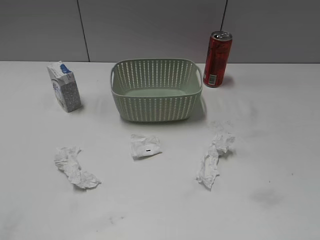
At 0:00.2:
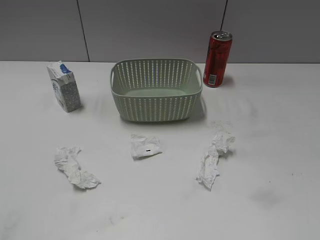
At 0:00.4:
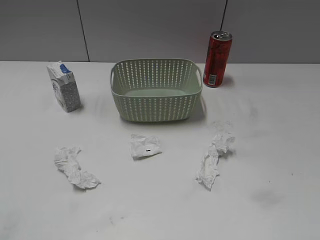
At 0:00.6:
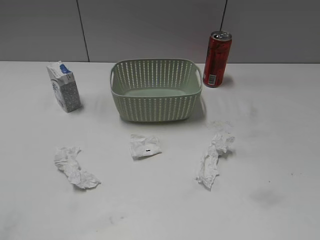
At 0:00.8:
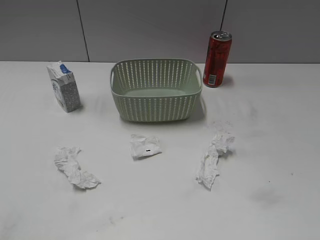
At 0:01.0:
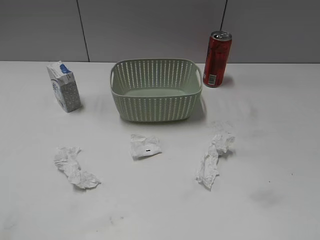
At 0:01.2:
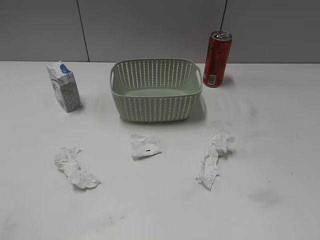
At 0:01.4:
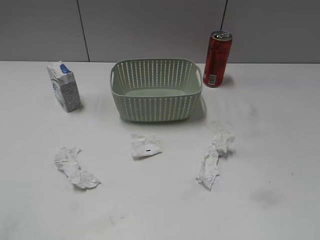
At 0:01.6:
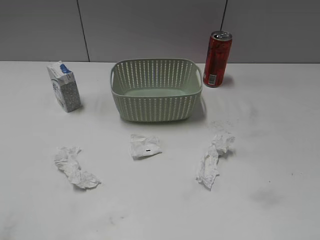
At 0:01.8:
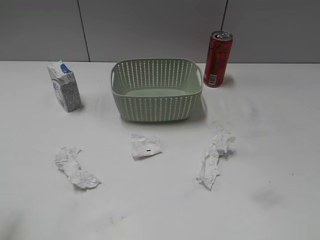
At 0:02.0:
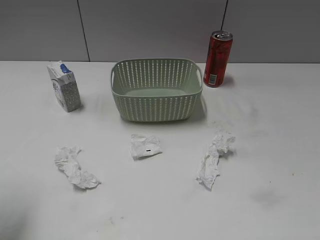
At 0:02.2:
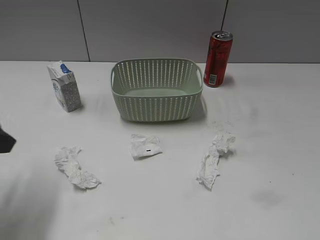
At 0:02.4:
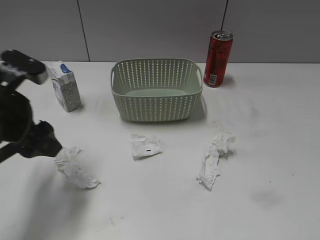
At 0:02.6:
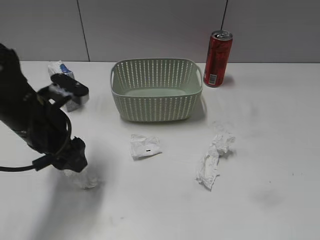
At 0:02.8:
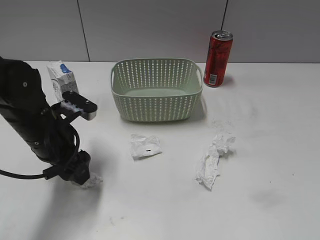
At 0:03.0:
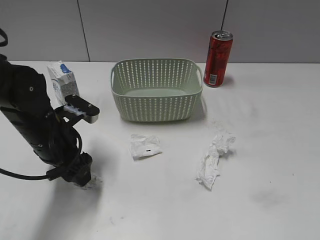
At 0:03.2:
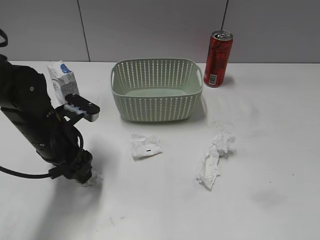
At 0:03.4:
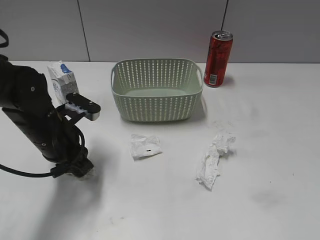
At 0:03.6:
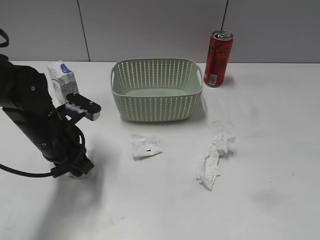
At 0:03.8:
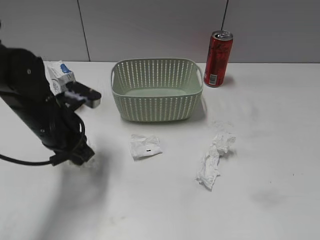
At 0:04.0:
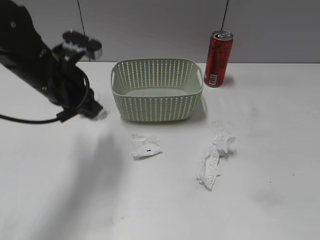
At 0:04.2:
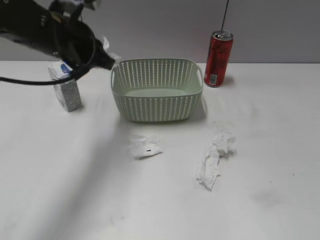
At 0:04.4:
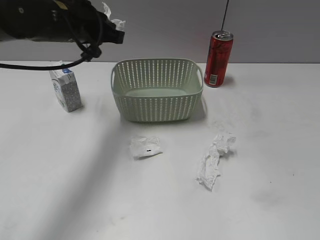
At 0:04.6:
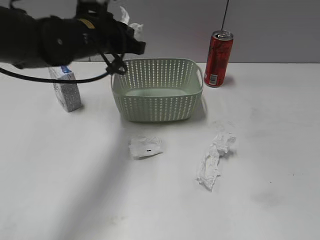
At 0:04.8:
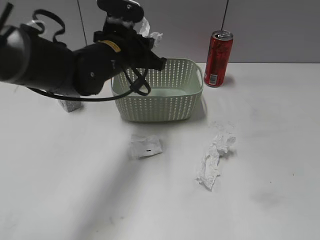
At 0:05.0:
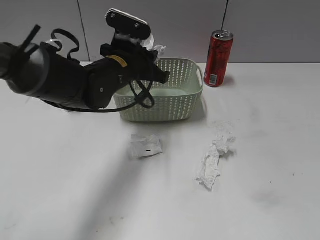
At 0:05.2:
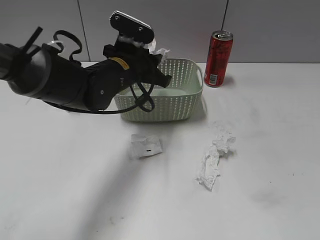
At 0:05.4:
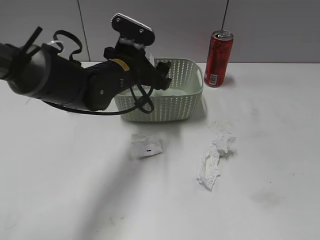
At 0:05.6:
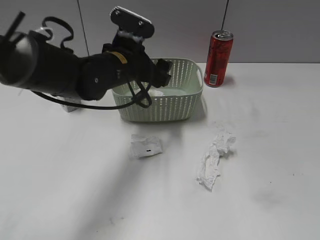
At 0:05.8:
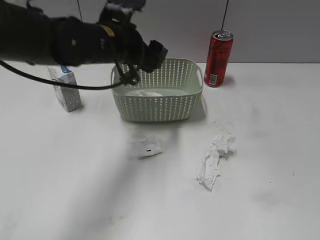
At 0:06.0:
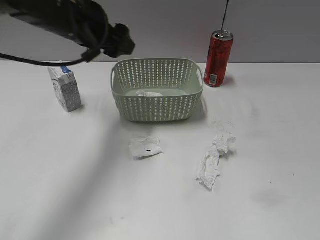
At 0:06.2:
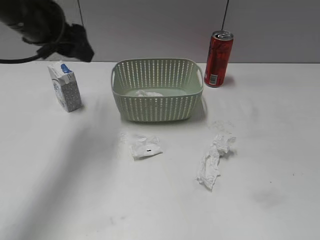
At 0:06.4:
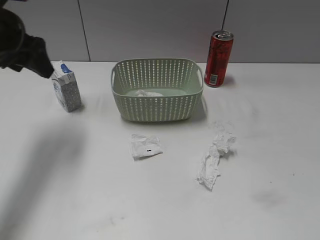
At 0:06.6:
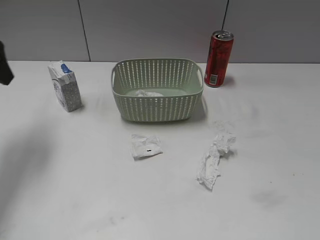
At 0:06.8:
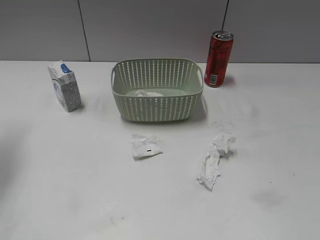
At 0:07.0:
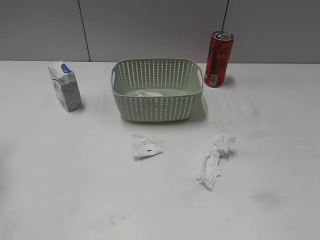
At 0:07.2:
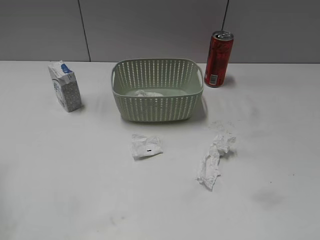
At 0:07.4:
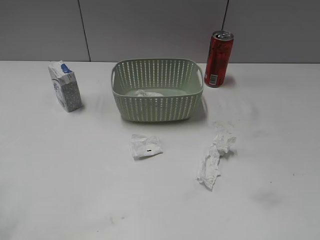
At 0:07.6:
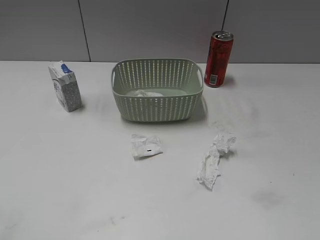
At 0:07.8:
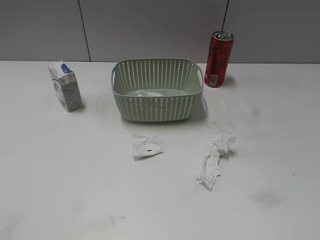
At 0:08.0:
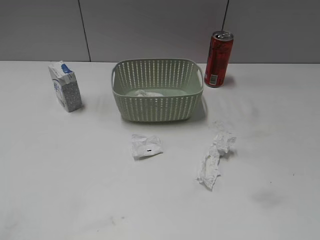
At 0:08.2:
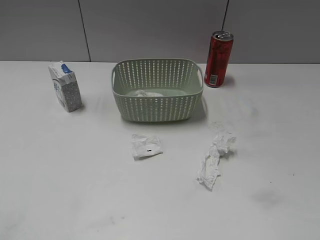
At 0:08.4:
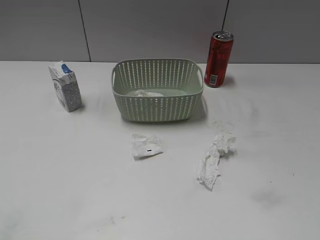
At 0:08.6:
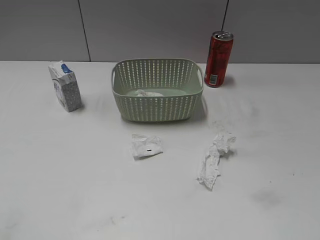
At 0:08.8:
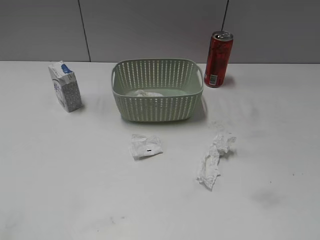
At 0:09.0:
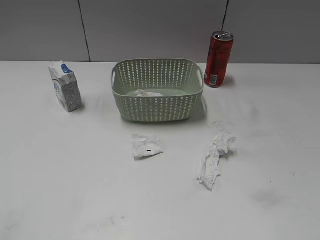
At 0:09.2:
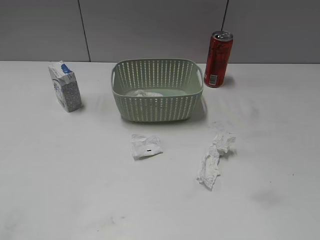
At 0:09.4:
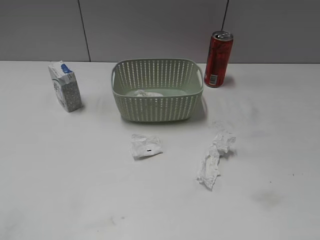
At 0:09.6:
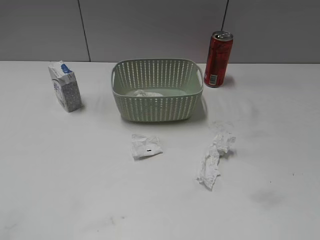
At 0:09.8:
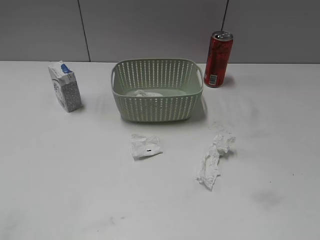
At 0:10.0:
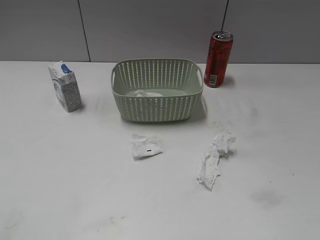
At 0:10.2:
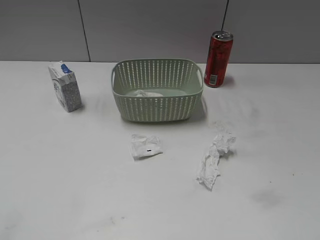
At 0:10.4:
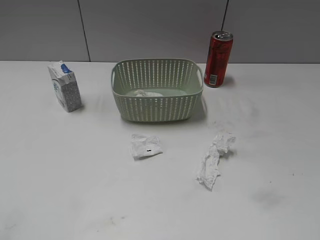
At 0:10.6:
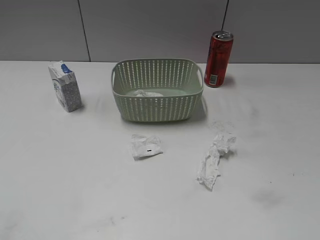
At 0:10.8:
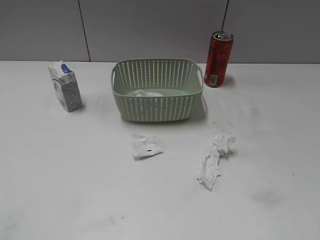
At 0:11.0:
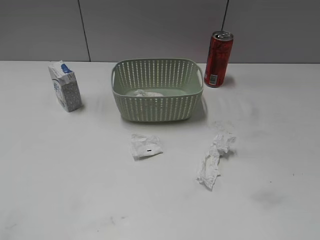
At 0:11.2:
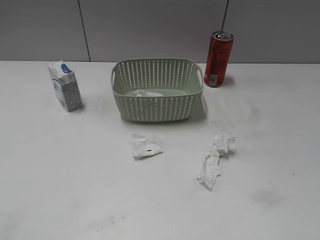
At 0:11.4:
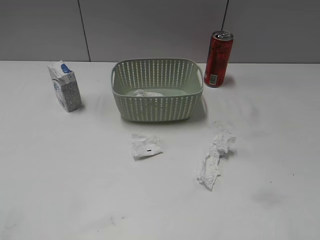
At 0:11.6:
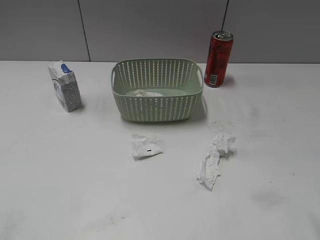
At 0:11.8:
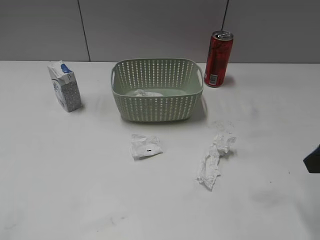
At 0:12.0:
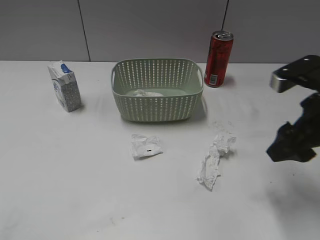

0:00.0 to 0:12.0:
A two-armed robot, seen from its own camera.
Step, 0:02.0 to 0:03.6: Grasp the waste paper with left gripper.
Step, 0:03.8 to 0:05.6: Place the waste paper in the basket with left gripper.
0:01.6 to 0:03.0: The left gripper is displaced forward, downward and to the right by approximately 35 cm.
0:03.0 to 0:04.4: The left gripper is displaced upward and forward by approximately 15 cm, and closes up.
0:04.4 to 0:06.0: The left gripper travels downward and back again, some 10 cm each way, and opens.
0:06.0 to 0:07.6: The left gripper travels backward and to the left by some 30 cm.
0:10.4 to 0:12.0: The right gripper moves forward, about 25 cm.

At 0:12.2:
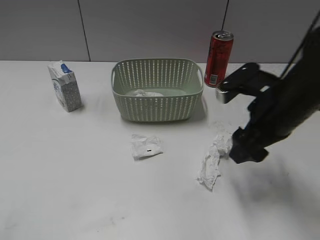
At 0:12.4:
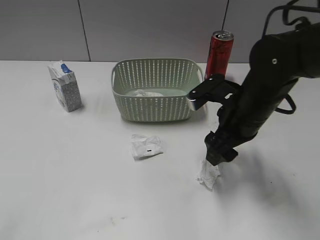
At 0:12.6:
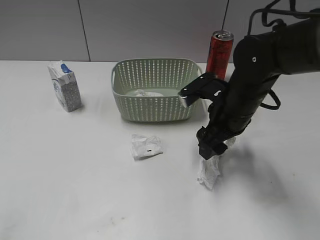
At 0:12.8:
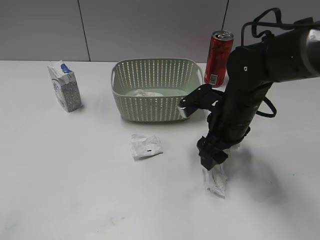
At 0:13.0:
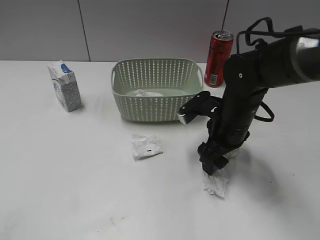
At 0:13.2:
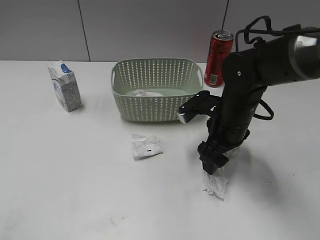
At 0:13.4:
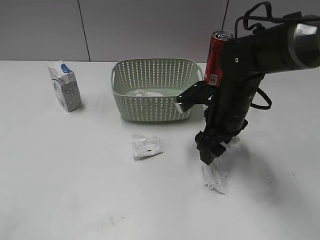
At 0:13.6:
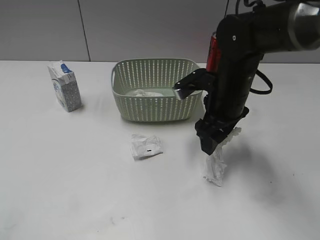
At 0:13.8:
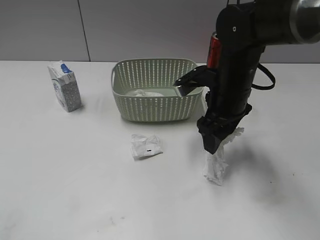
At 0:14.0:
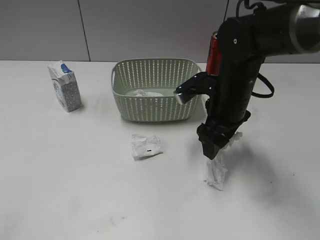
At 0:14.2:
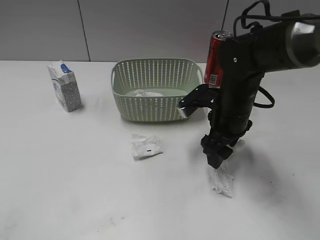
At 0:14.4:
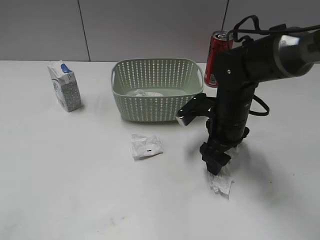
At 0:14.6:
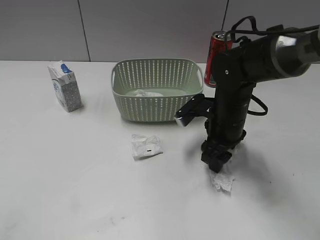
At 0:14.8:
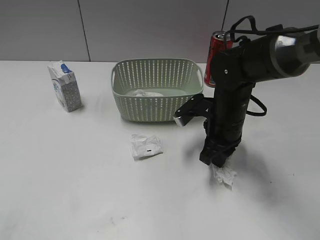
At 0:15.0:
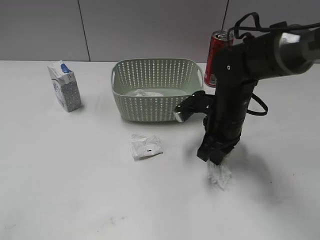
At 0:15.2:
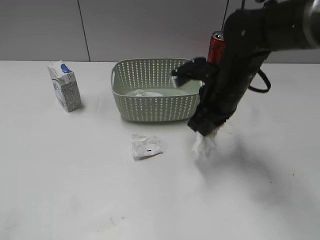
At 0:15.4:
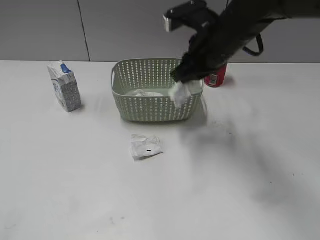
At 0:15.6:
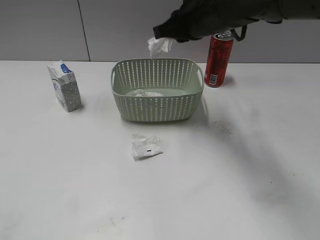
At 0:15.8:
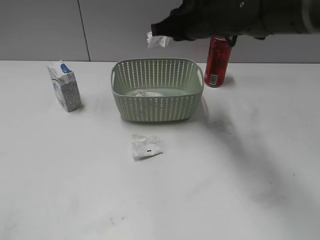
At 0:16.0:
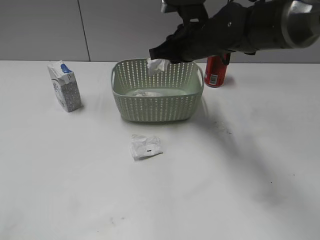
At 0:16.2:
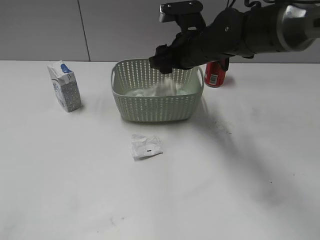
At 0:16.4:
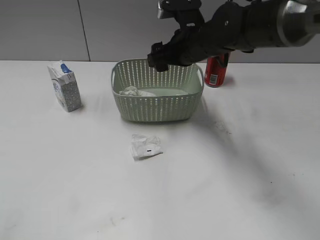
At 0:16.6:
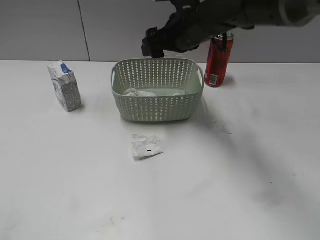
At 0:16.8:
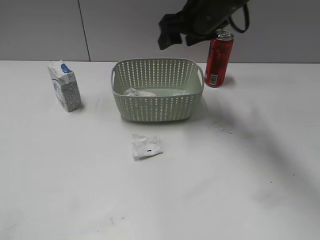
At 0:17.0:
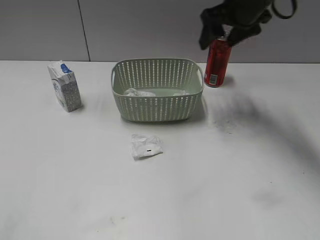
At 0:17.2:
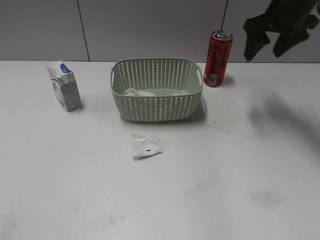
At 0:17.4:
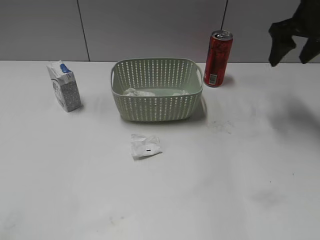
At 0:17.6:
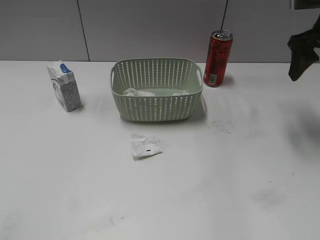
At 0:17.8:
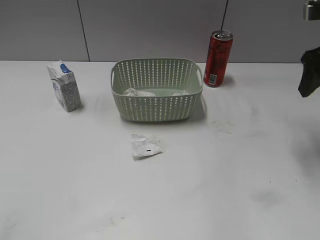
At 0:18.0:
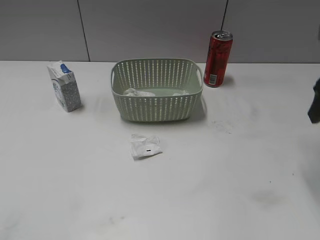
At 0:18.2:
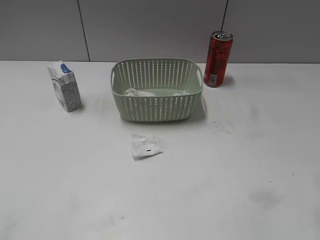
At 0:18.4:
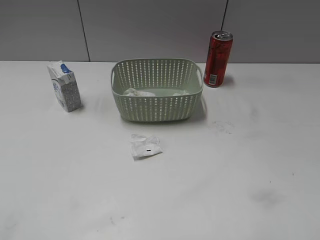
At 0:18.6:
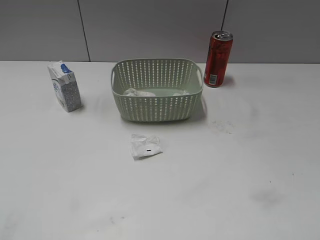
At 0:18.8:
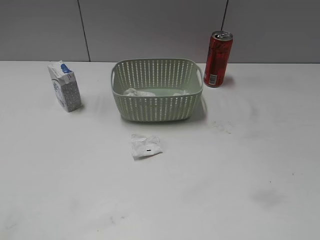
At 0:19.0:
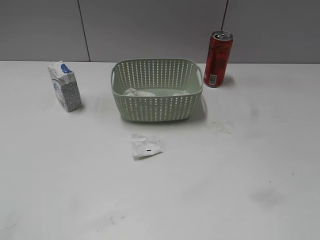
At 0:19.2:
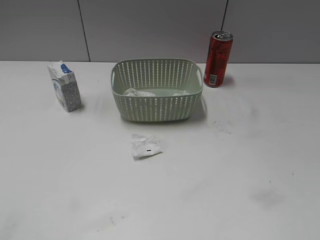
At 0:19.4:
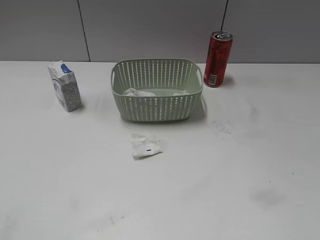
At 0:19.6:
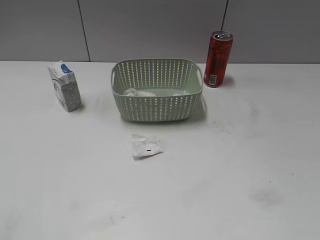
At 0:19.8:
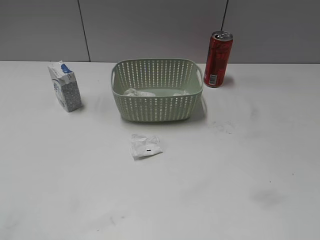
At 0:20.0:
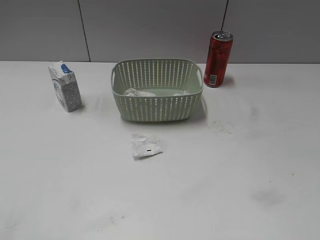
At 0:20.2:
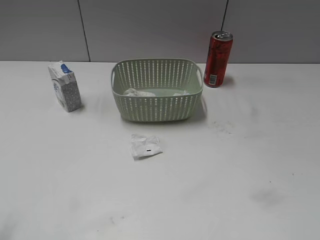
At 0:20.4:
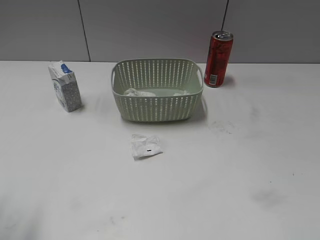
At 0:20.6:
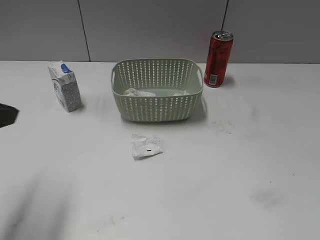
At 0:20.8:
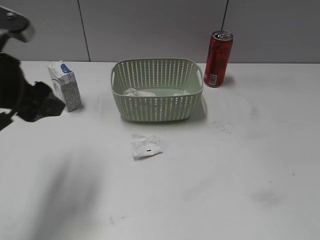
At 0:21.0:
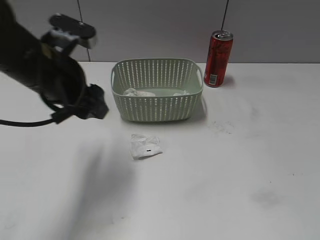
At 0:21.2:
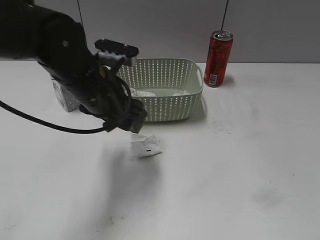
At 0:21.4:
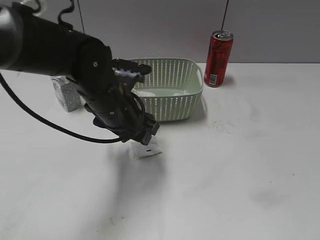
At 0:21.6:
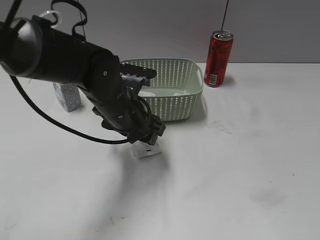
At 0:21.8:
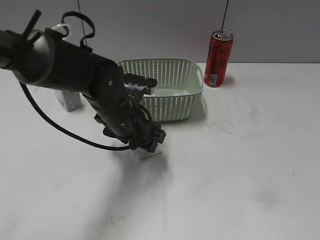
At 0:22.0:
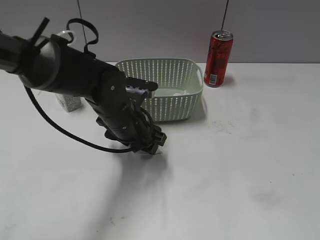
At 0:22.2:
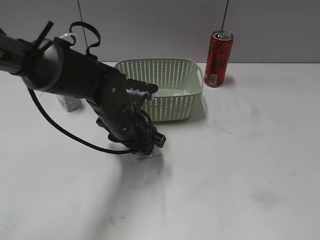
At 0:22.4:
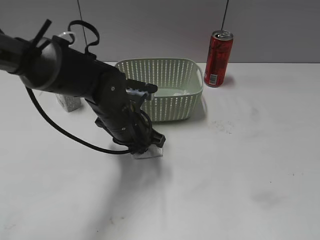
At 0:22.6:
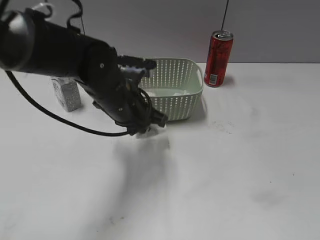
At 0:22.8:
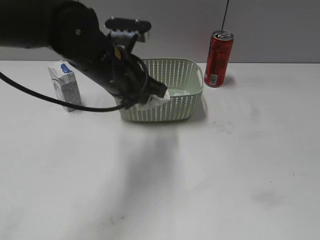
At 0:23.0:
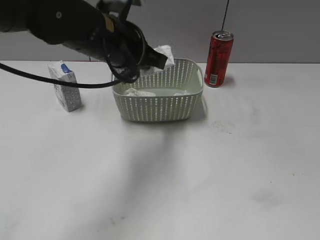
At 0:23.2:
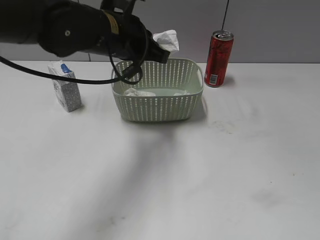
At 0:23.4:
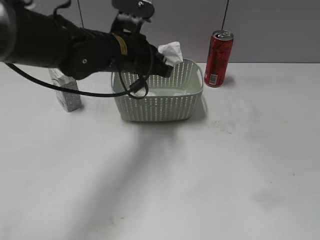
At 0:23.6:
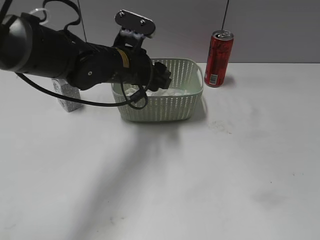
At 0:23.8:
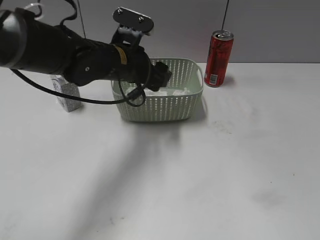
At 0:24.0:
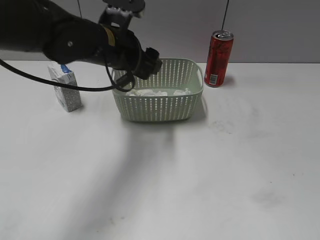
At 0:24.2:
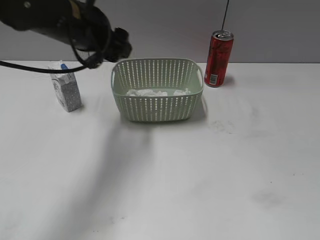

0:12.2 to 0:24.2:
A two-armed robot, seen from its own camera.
Step, 0:12.2 to 0:14.8: Grasp the waste paper with right gripper.
Step, 0:15.0 to 0:16.4: Place the waste paper in the basket with right gripper.
Step, 0:16.6 to 0:22.4: Grasp the waste paper with left gripper.
Step, 0:22.6 to 0:23.8: Place the waste paper in the basket with left gripper.
0:12.2 to 0:13.8: The right gripper heads forward and to the left, covering about 10 cm.
0:13.8 to 0:15.2: The right gripper closes its fingers.
0:15.2 to 0:16.6: The right gripper travels forward and upward by roughly 10 cm, and opens.
0:16.6 to 0:18.2: The right gripper moves to the right and backward, some 30 cm.
0:19.8 to 0:21.2: The left gripper moves forward and to the right, roughly 35 cm.
0:21.2 to 0:22.6: The left gripper closes.
0:22.6 to 0:24.2: The left gripper swings up and down, approximately 10 cm each way, with 2 reversals, and opens.
